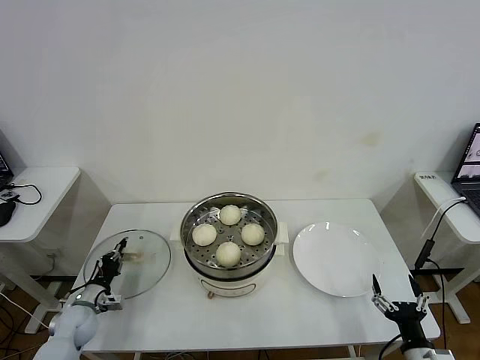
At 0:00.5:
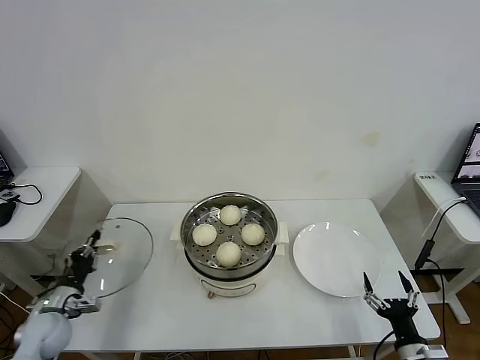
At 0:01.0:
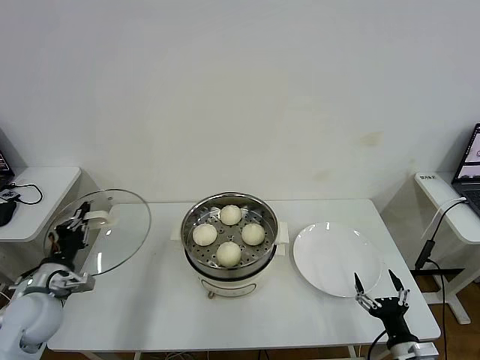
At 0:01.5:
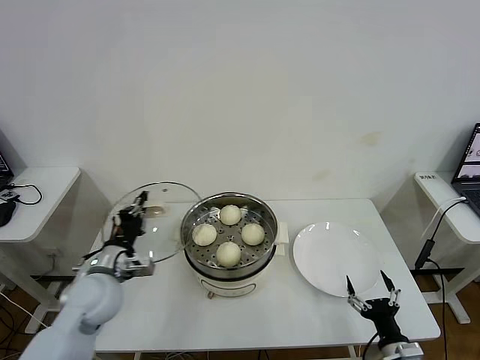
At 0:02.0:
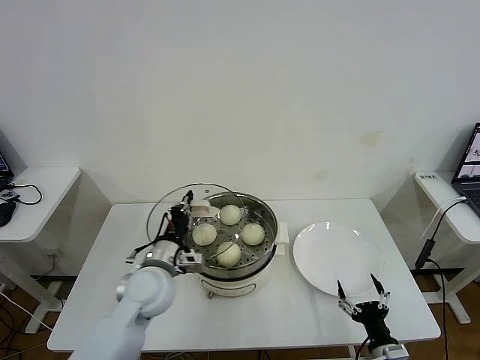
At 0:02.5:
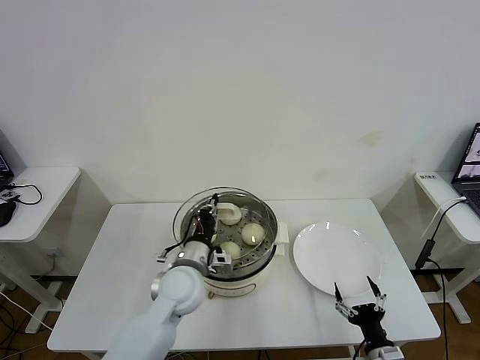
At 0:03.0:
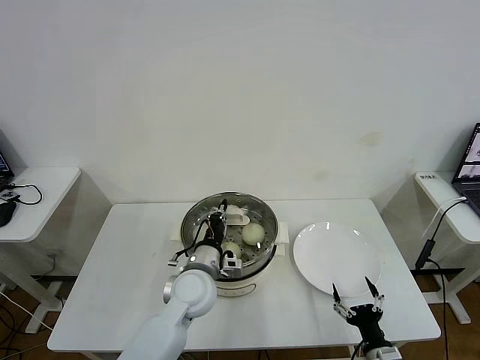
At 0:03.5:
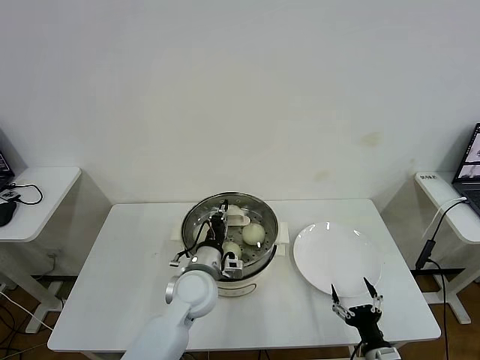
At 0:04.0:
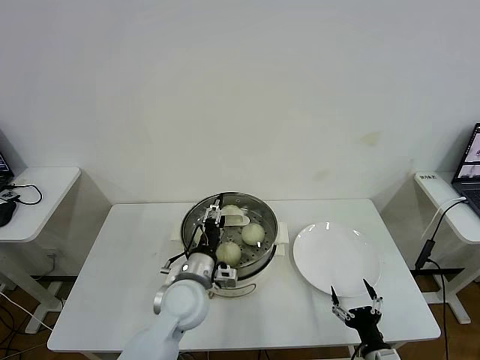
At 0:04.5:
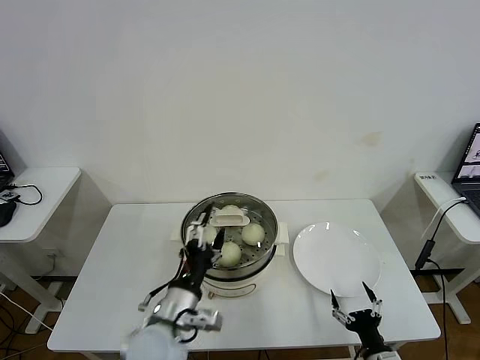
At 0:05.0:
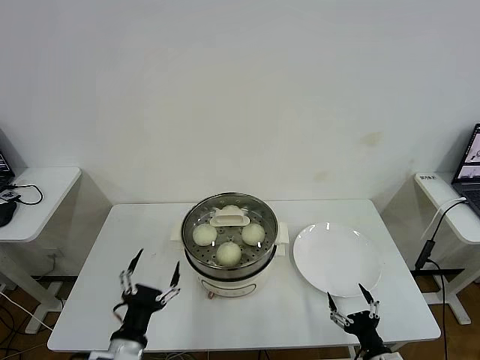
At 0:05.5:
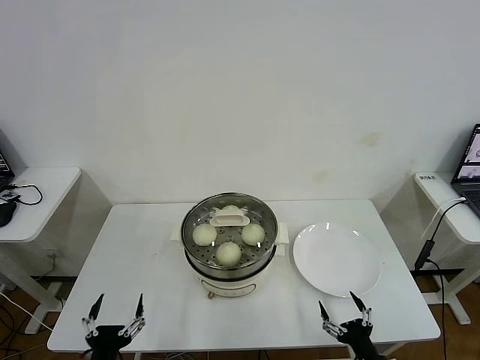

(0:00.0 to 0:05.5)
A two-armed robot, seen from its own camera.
Task of the whole recording: take steamed baozi put them in steamer then cover it.
Step, 0:00.5 - 0:04.0: Place the pot lid on the steamer with left gripper.
0:00.0 - 0:02.0: The right gripper ends up approximately 5 cm from where it was. Meanwhile the left gripper shifts some 30 cm to the right and upward.
0:02.0 - 0:03.5: The left gripper heads to the right, covering approximately 10 cm.
0:03.5 - 0:05.5: The left gripper shifts some 30 cm backward and to the left, and opens up.
